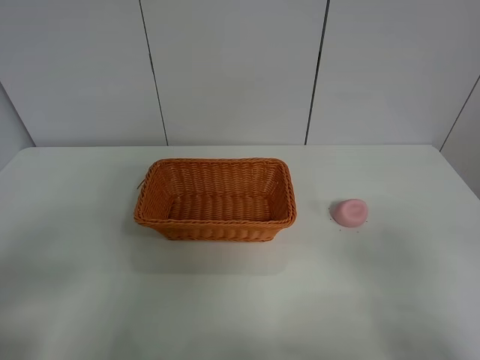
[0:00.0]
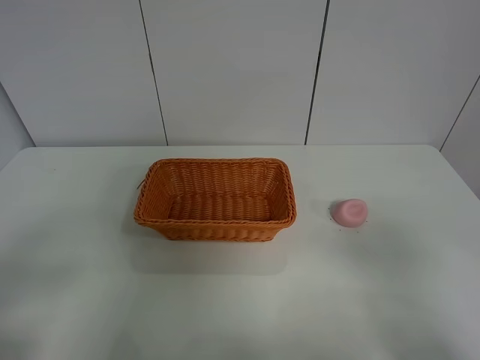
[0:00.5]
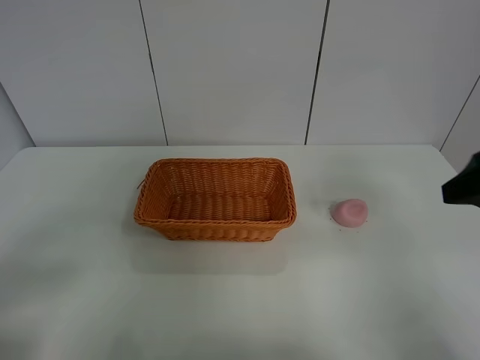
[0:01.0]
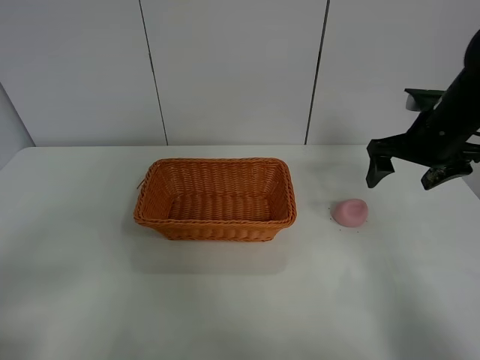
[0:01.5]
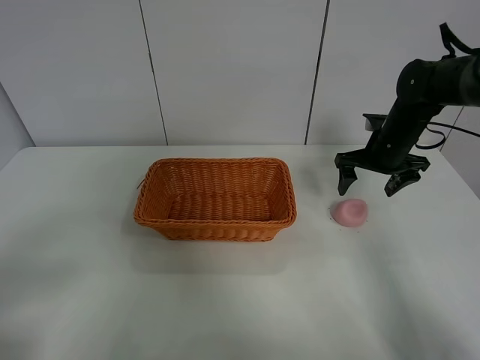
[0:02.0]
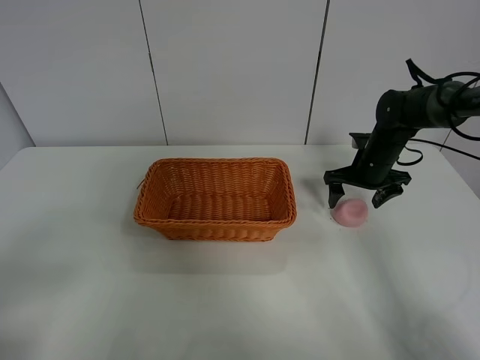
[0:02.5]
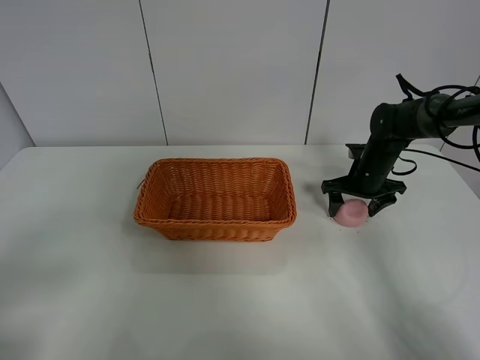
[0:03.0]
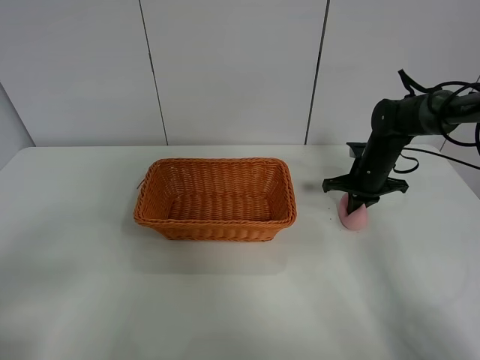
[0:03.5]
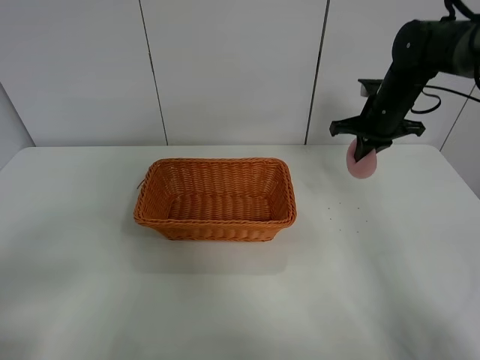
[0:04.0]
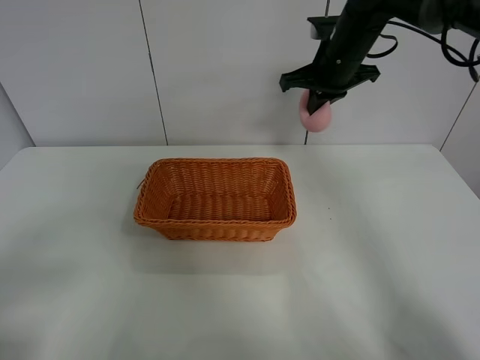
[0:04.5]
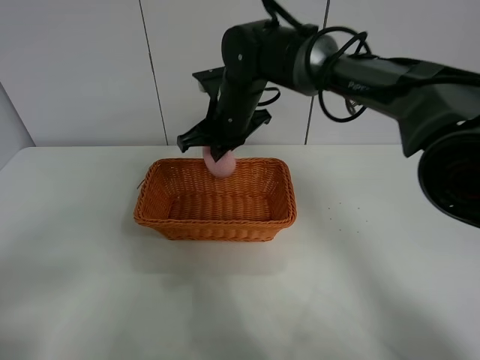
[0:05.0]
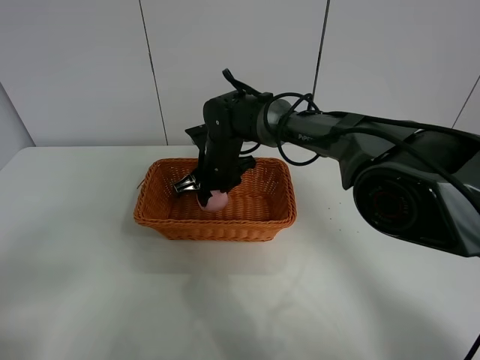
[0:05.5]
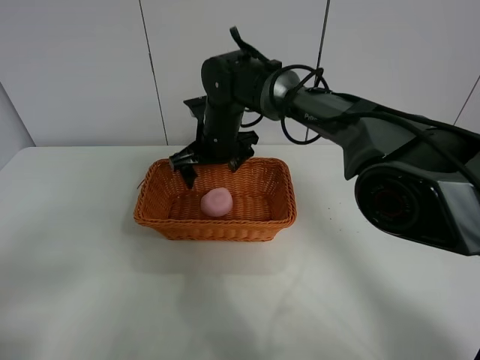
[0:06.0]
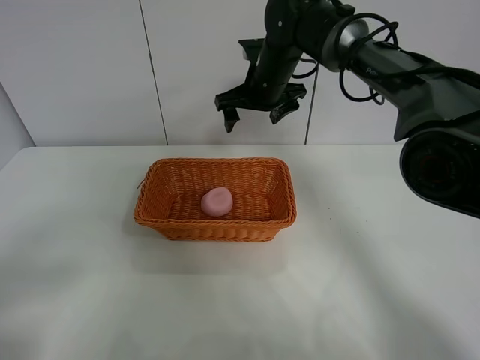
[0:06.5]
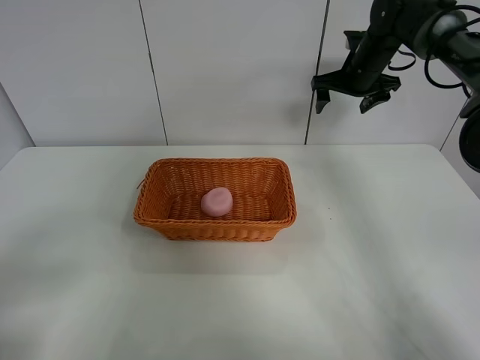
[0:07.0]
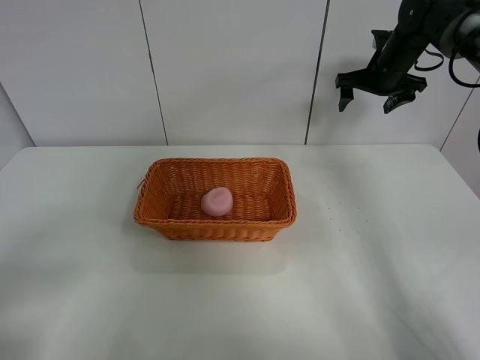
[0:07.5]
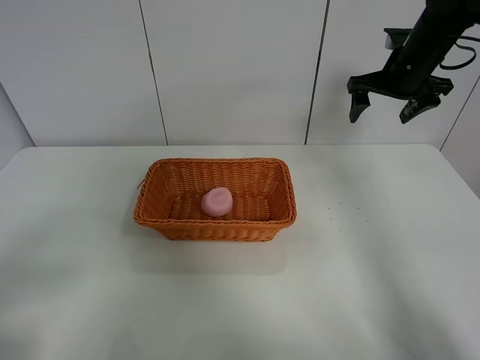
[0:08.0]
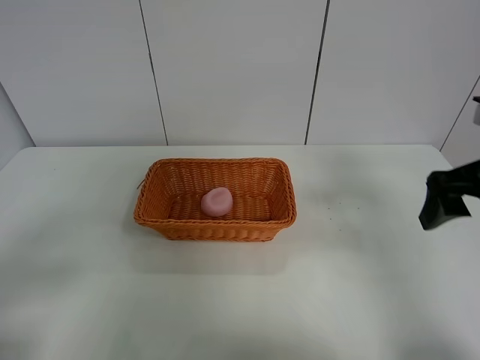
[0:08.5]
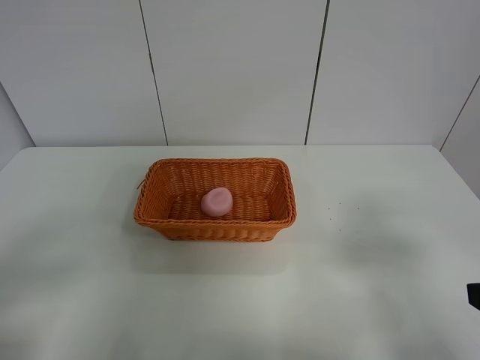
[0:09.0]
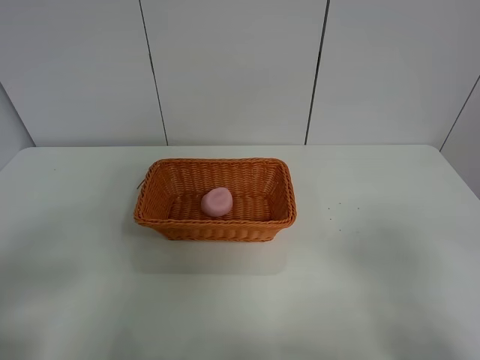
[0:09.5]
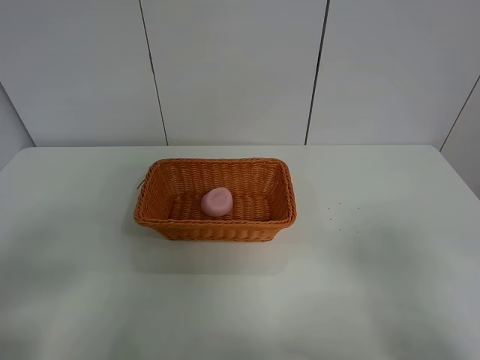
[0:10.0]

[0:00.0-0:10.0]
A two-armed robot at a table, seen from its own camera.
Step, 0:00.0 to 0:03.0: Grasp the peach with right gripper.
Step, 0:03.5 to 0:06.0: Place the peach in the basket with right gripper.
0:00.0 to 0:02.0: The right gripper is displaced forward by about 40 cm.
0:02.0 to 0:04.0: The right gripper goes roughly 5 cm upward, and closes up.
0:04.0 to 0:06.0: The right gripper is displaced to the left by some 25 cm, and opens up.
0:06.0 to 0:08.0: The right gripper goes about 30 cm to the right.
0:08.0 to 0:10.0: The right gripper shifts some 40 cm backward.

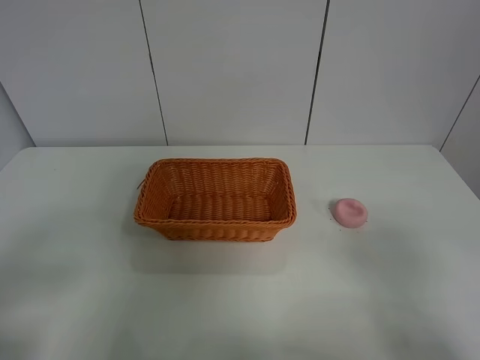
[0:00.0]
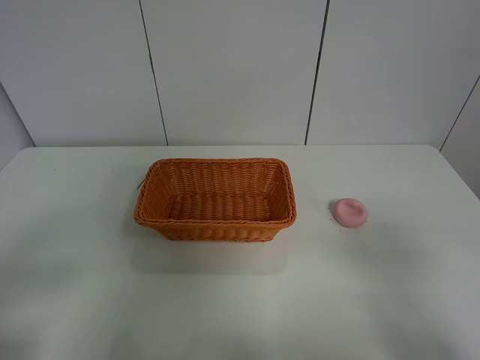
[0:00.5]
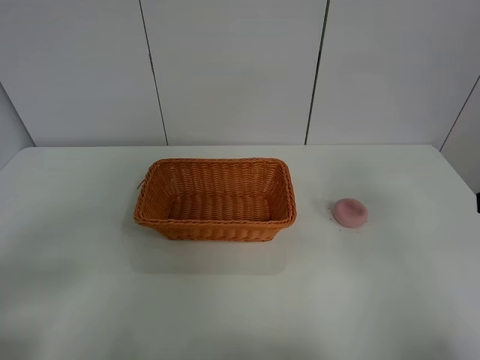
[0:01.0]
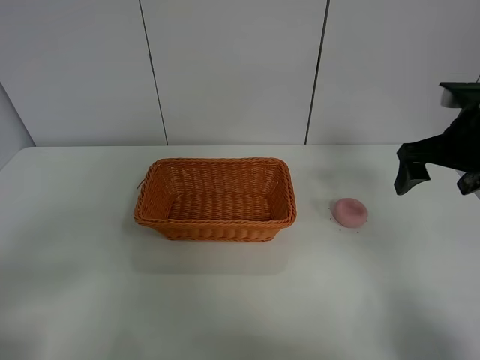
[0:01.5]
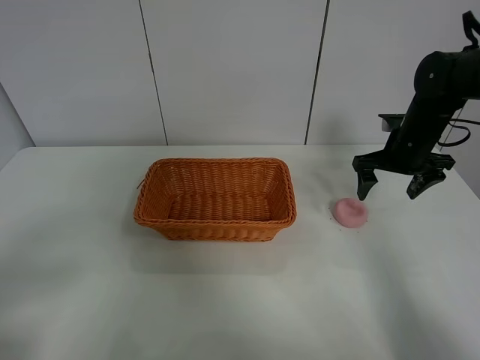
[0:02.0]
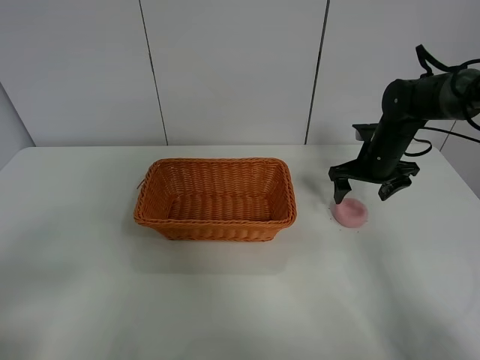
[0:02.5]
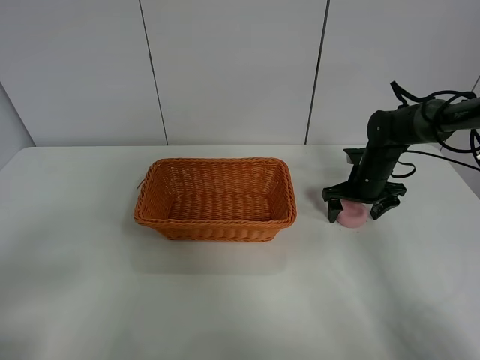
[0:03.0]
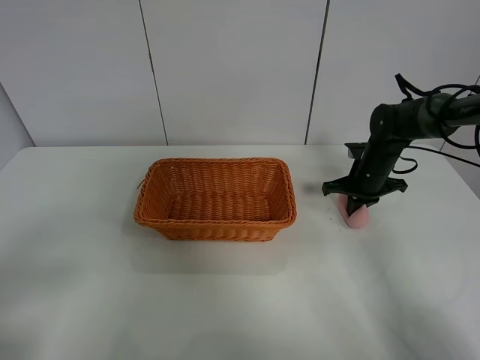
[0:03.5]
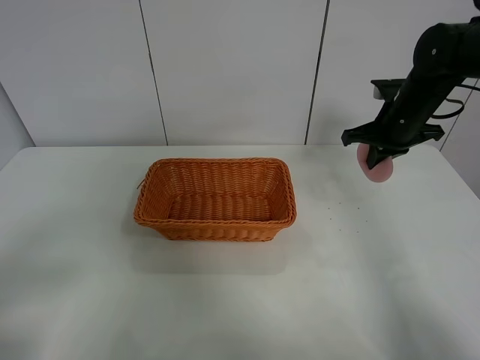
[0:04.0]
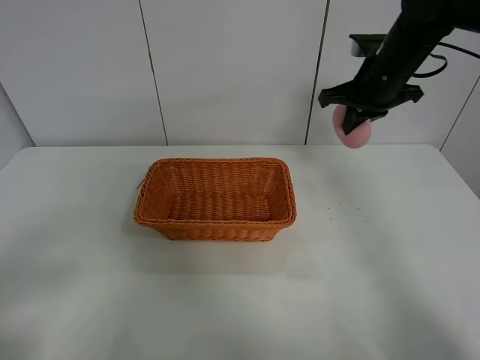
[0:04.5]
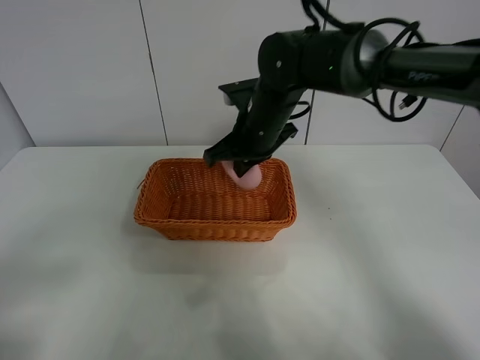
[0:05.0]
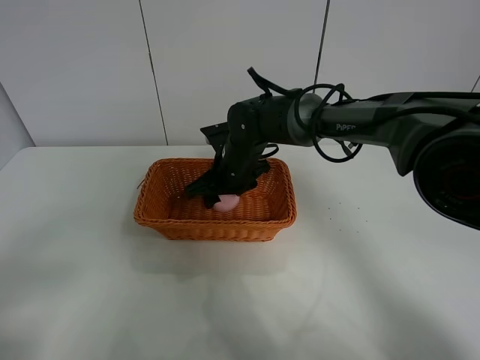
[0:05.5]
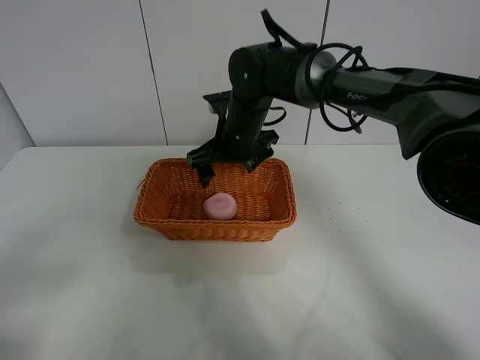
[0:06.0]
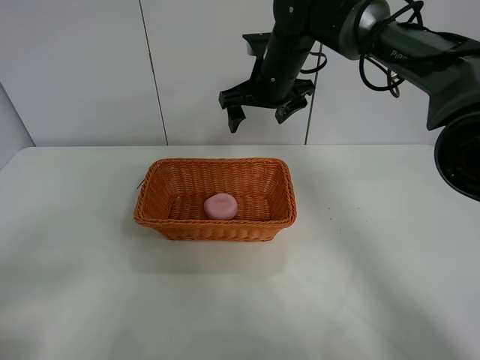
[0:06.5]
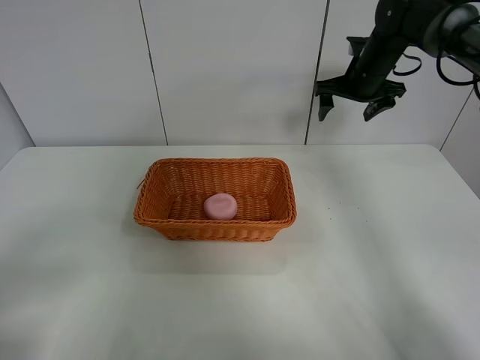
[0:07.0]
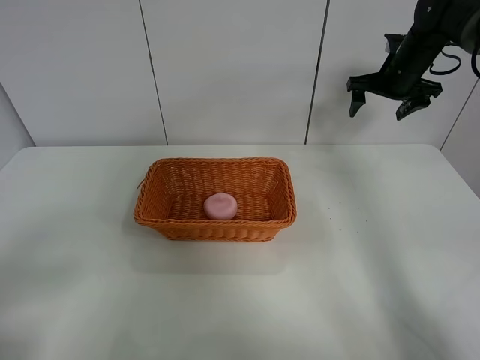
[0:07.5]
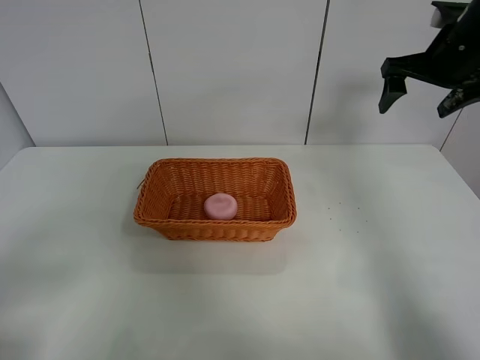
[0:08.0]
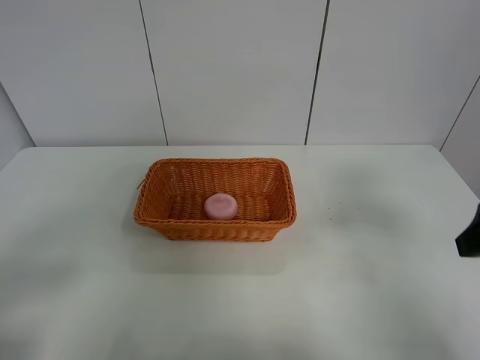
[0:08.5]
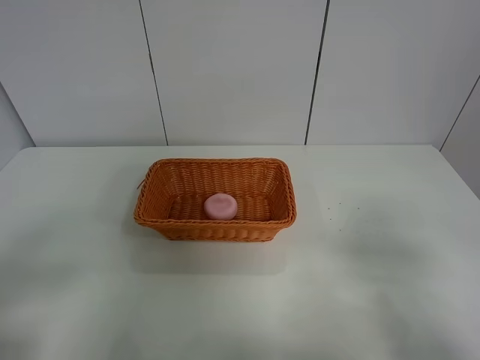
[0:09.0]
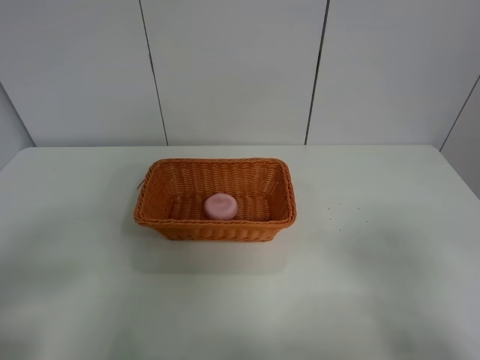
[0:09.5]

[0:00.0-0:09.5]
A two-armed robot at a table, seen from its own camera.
Step, 0:00.0 to 0:03.5: Grasp the peach with right gripper.
Step, 0:04.0 to 0:06.0: Place the peach in the basket with right gripper.
0:00.0 to 0:02.0: The right gripper is displaced forward by some 40 cm.
0:02.0 to 0:04.0: The right gripper reaches about 10 cm downward, then returns, and closes its fingers.
0:04.0 to 0:05.5: The right gripper is displaced to the left by some 25 cm, and opens.
0:05.5 to 0:07.5: The right gripper goes about 35 cm to the right, upward and forward.
0:07.5 to 0:09.5: The right gripper travels backward by roughly 50 cm.
